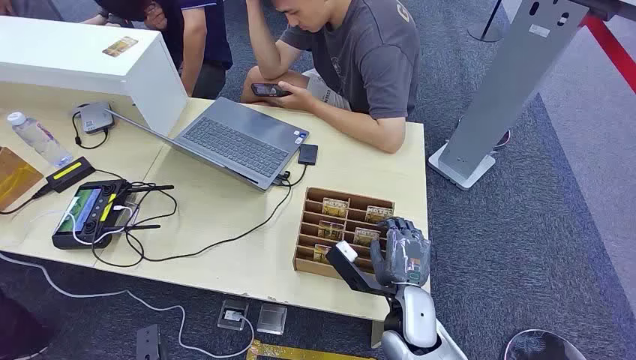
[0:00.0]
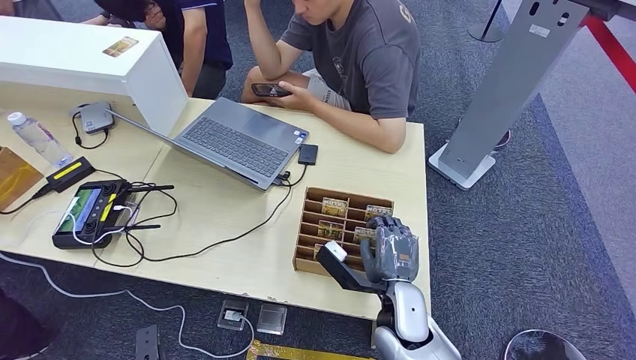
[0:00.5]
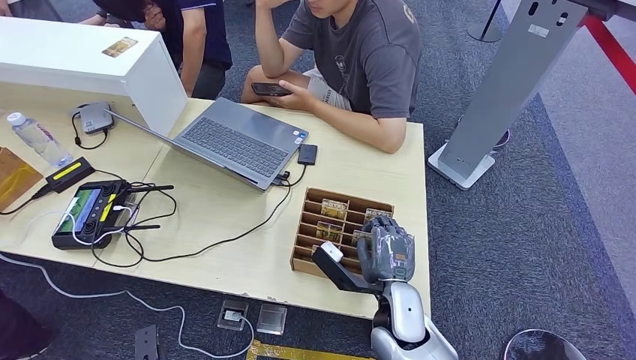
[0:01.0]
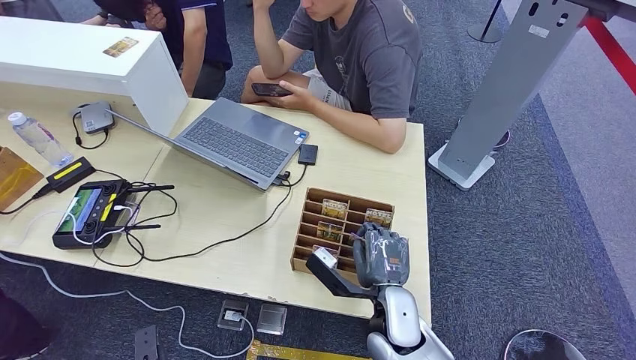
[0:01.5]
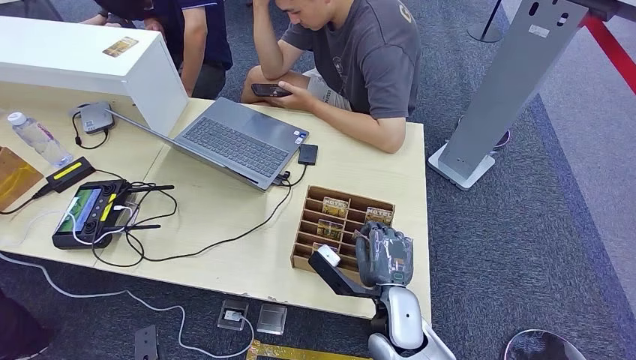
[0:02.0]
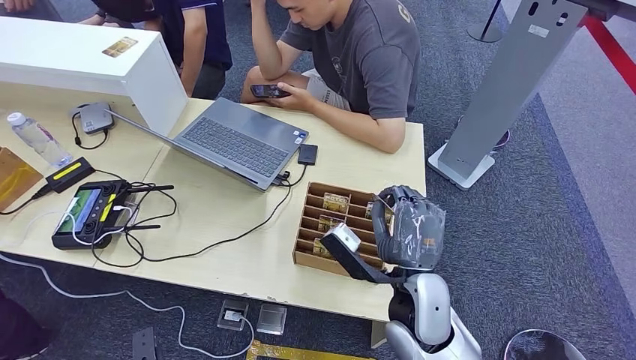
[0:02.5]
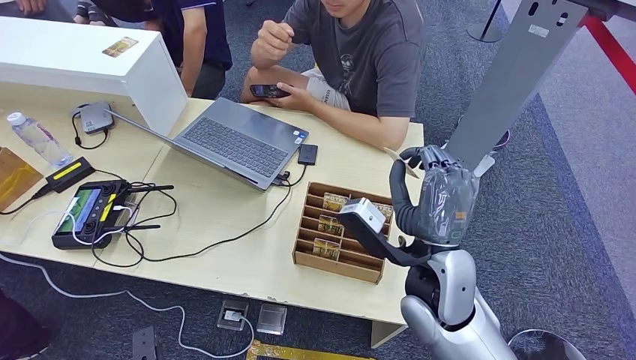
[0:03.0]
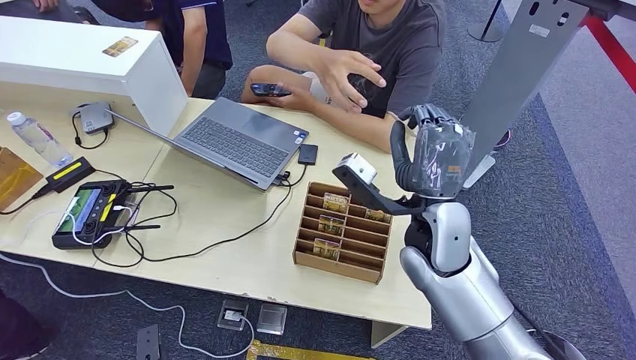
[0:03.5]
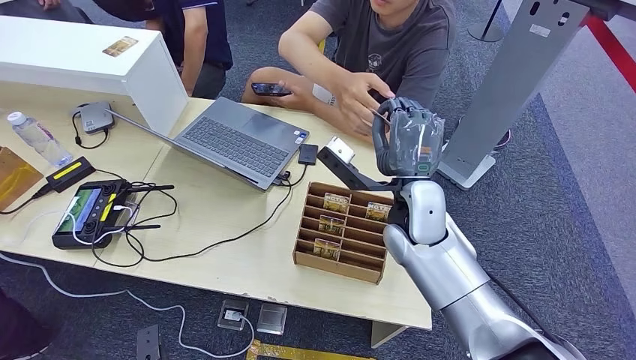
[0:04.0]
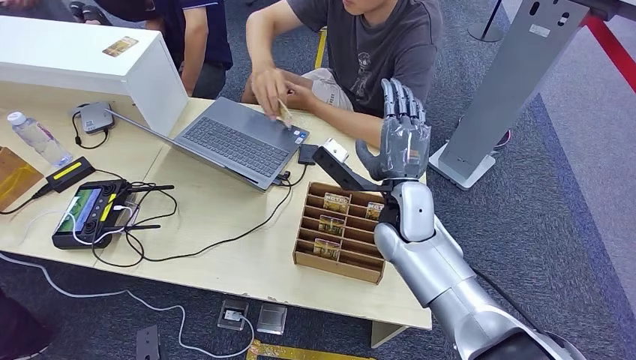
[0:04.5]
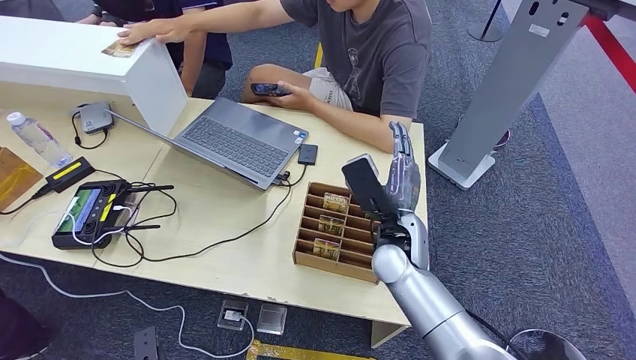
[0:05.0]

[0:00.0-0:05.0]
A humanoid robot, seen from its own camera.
Step, 0:00.0 to 0:02.5: Pick up the room card from the card holder.
Step, 0:03.0 to 0:05.0: Hand the room card to the target.
0:02.5 to 0:05.0: The right hand goes roughly 10 cm forward.
